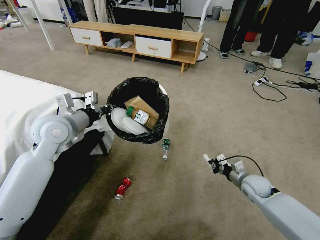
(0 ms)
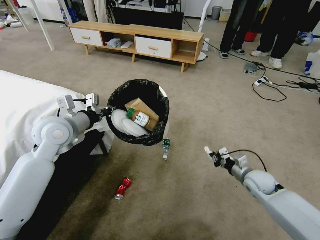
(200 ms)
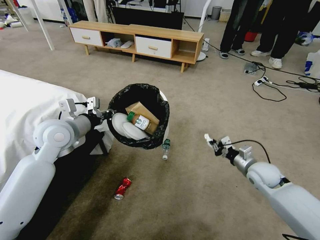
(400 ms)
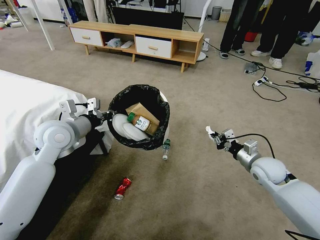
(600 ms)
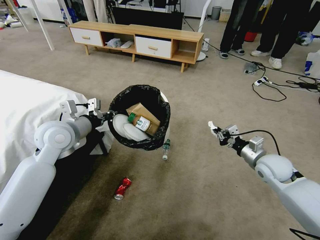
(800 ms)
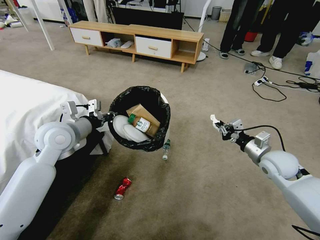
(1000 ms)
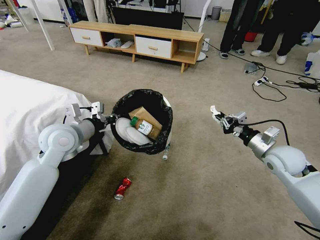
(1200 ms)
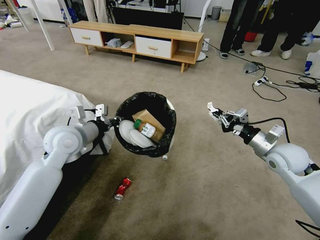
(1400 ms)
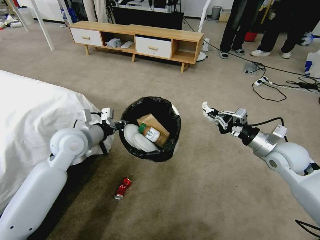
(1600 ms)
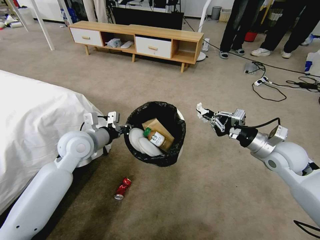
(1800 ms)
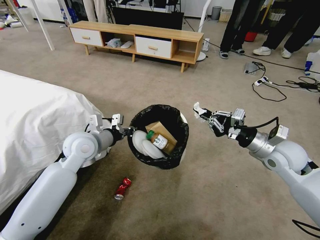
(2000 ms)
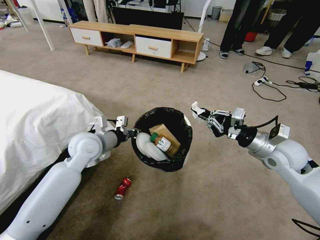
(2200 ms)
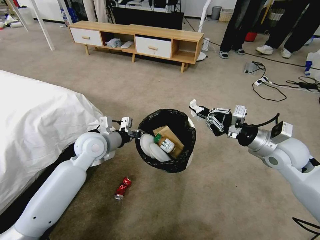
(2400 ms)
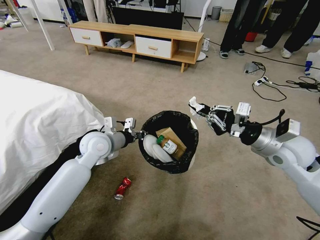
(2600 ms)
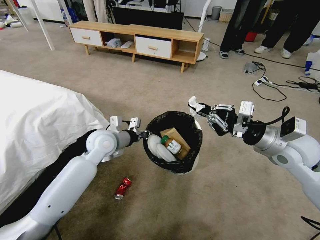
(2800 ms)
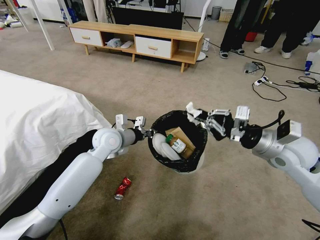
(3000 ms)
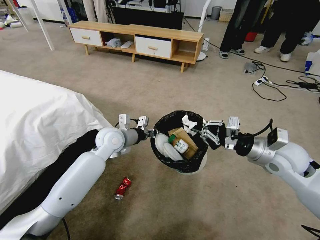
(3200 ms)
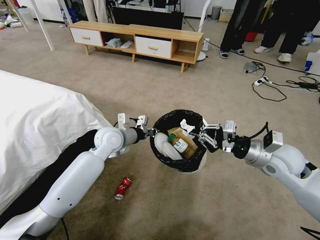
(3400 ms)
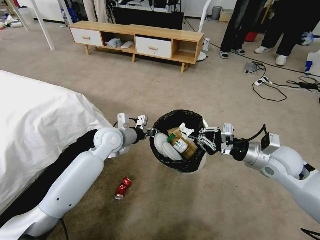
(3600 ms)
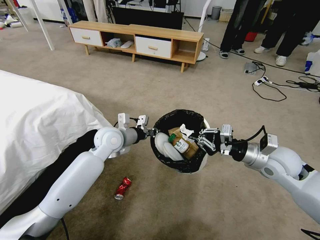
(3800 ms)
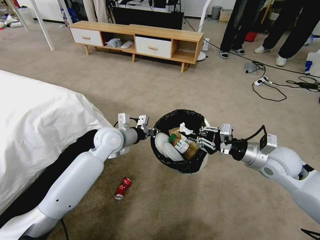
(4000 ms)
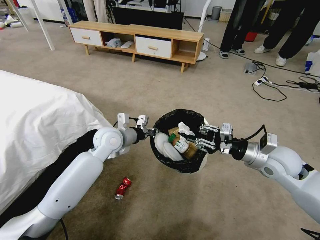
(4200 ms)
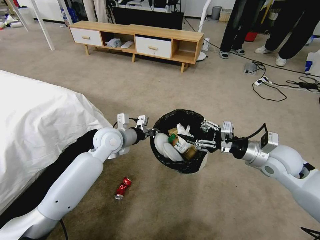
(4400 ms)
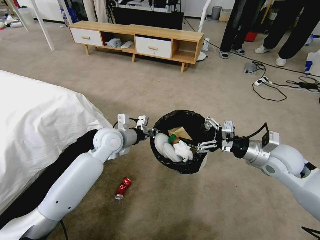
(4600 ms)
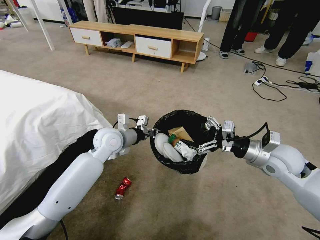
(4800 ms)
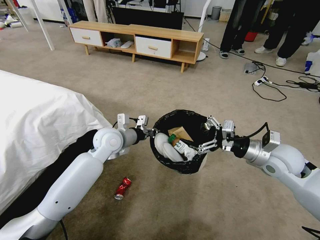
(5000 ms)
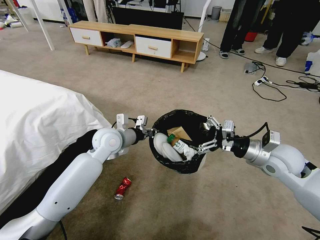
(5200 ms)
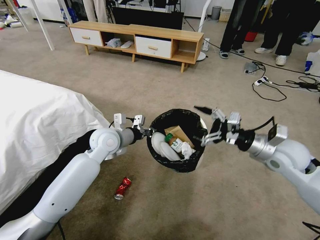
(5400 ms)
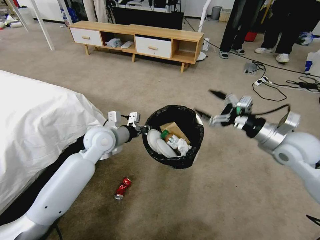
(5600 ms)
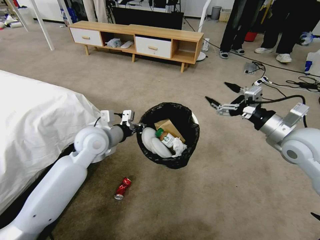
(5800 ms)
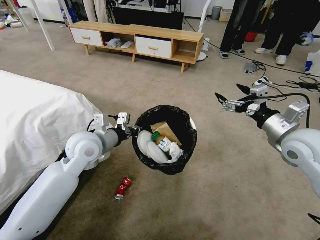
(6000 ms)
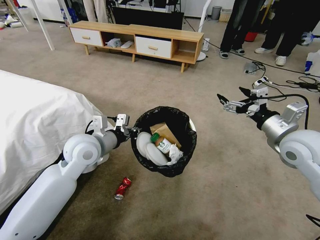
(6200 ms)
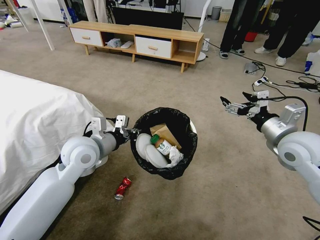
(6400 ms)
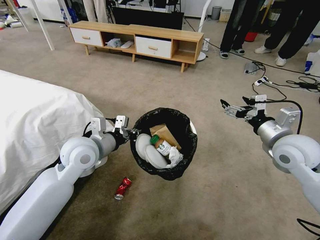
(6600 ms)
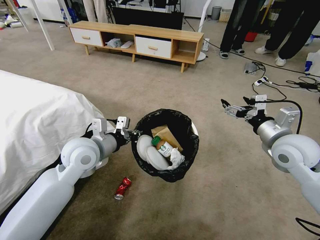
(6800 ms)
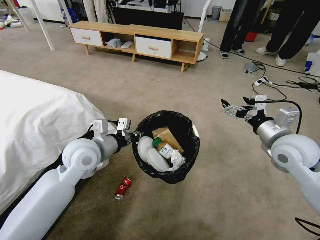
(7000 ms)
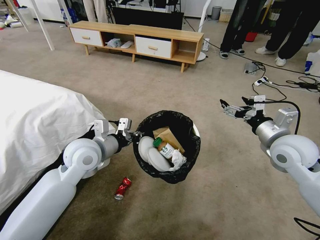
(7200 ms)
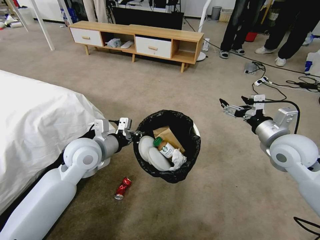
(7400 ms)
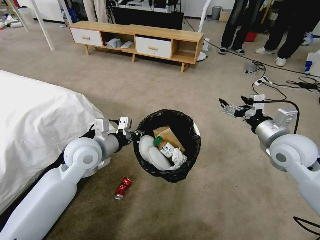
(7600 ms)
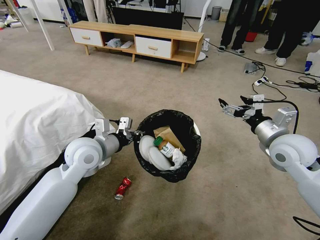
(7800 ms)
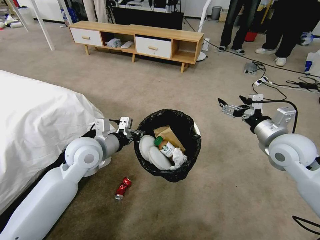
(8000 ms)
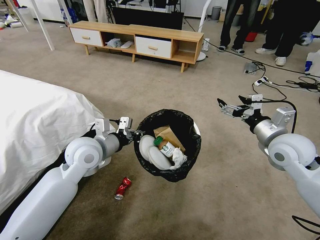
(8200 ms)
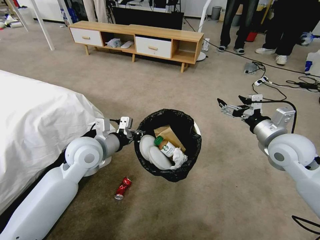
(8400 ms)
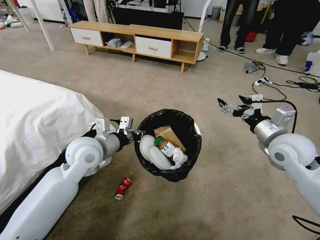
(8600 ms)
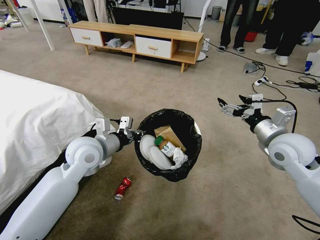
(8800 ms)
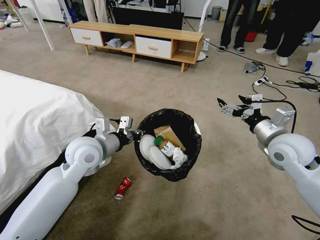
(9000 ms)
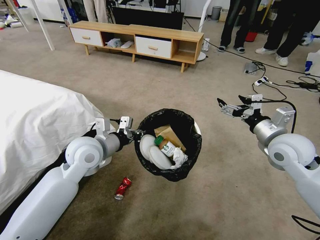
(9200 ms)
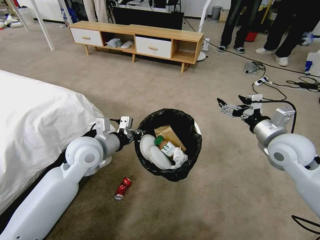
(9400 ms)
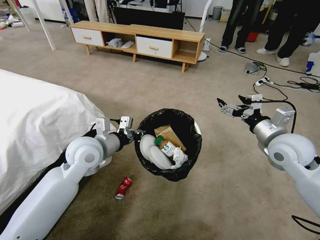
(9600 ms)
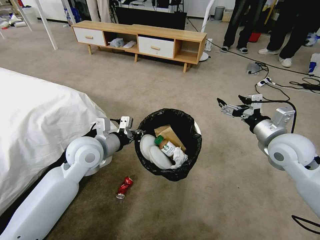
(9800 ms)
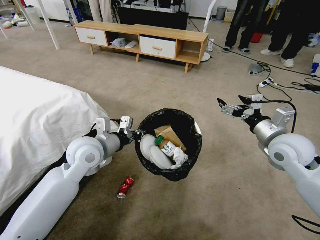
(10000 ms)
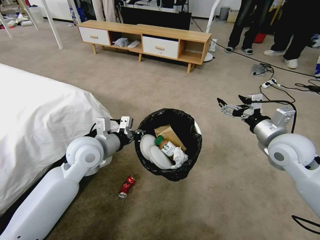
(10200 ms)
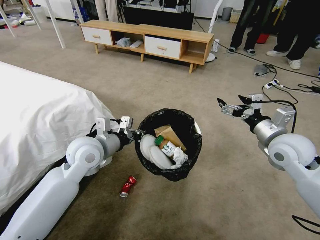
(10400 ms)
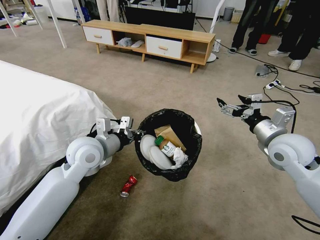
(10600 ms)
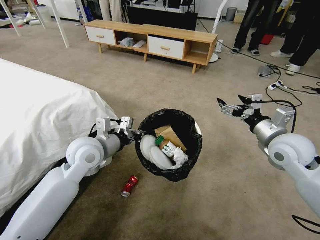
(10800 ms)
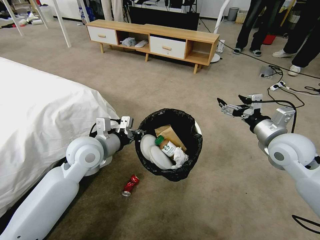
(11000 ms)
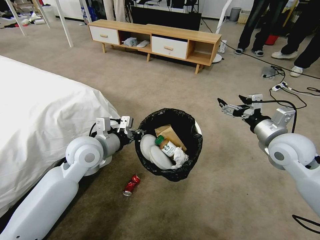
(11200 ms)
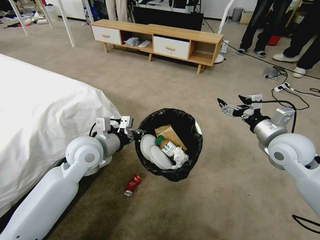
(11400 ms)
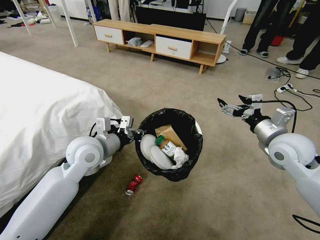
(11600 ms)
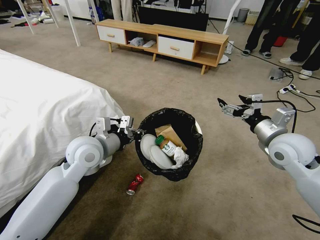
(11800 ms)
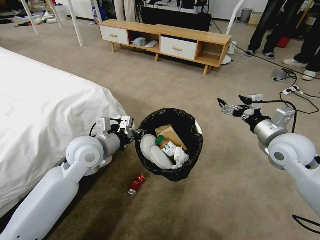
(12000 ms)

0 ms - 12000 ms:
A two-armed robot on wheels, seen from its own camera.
Task of the whole recording: Pick up the trash bin and place the garbage on the floor into it.
0 ms - 1600 ms: The left gripper changes place by roughly 5 cm. Meanwhile the right gripper shifts roughly 20 cm upward.
1600 ms - 3000 ms: The right gripper is displaced upward by some 5 cm. The left gripper heads to the right, forward and downward, covering approximately 10 cm.
3000 ms - 4400 ms: The right gripper opens up.
4400 ms - 6000 ms: The right gripper heads upward, covering some 5 cm, and opens its fingers. The left gripper shifts approximately 5 cm backward.
7600 ms - 9000 ms: The two grippers keep their place.

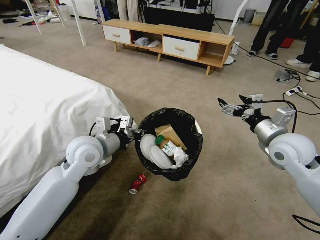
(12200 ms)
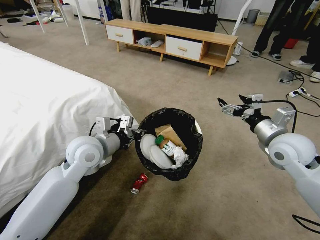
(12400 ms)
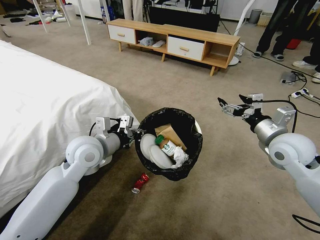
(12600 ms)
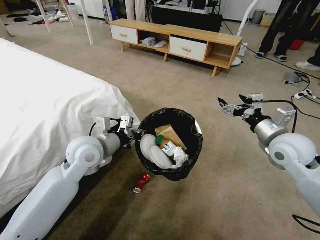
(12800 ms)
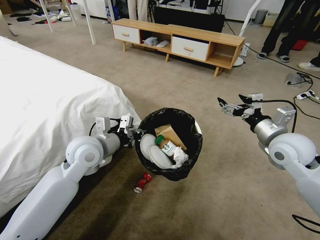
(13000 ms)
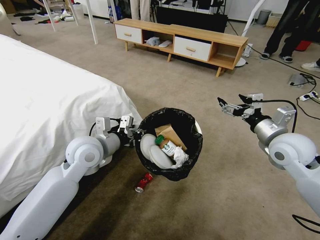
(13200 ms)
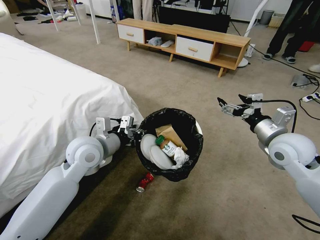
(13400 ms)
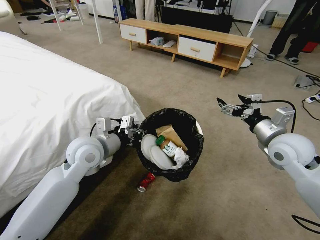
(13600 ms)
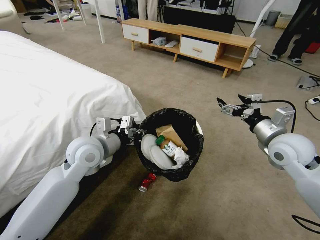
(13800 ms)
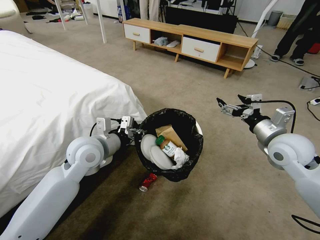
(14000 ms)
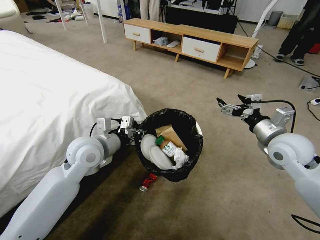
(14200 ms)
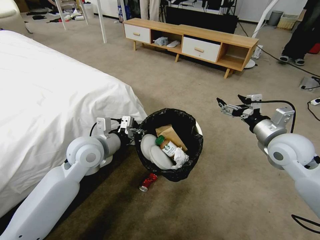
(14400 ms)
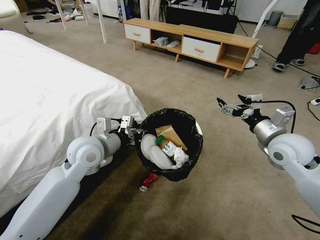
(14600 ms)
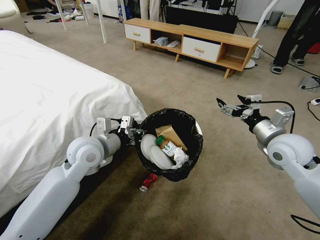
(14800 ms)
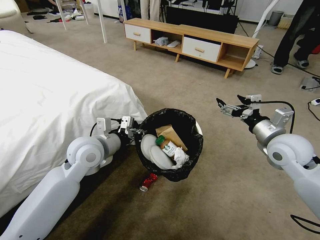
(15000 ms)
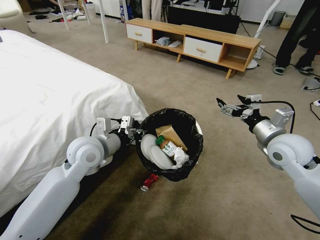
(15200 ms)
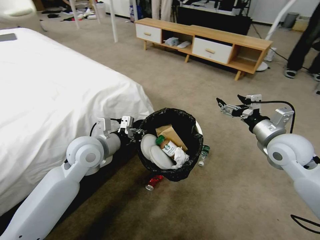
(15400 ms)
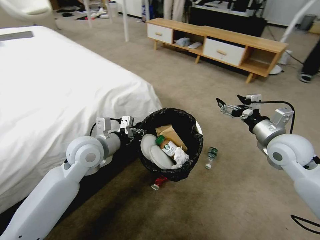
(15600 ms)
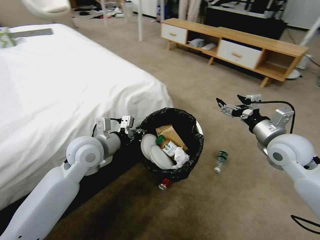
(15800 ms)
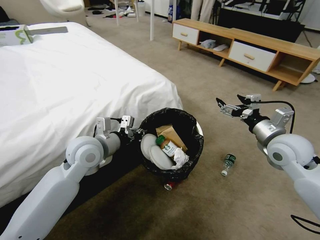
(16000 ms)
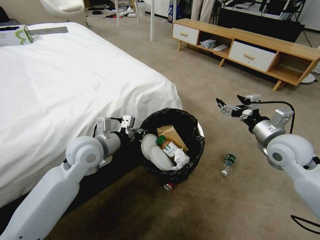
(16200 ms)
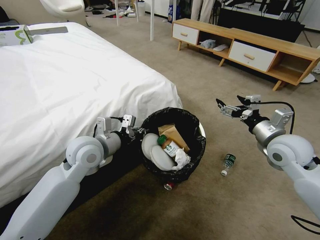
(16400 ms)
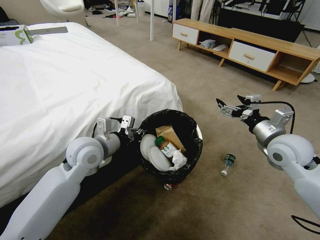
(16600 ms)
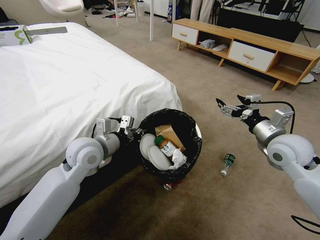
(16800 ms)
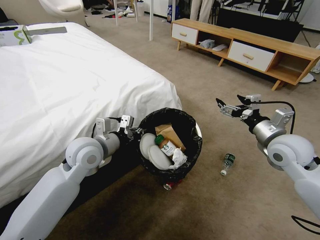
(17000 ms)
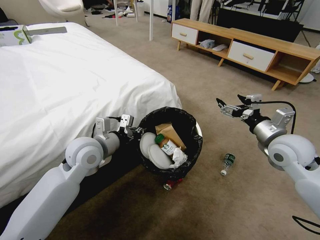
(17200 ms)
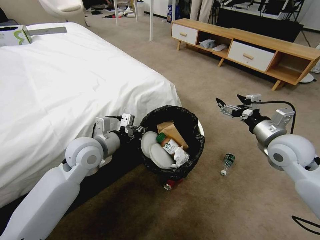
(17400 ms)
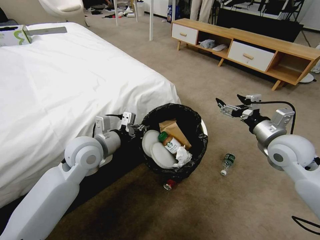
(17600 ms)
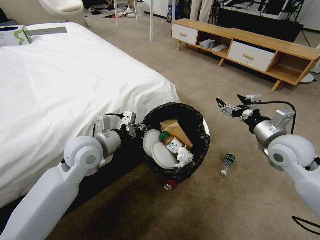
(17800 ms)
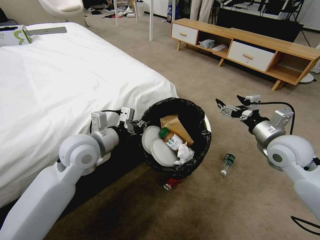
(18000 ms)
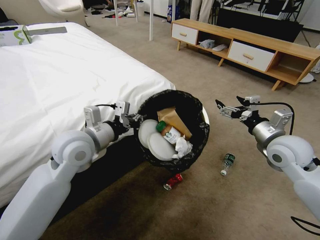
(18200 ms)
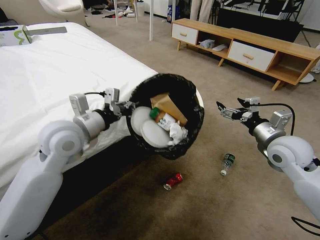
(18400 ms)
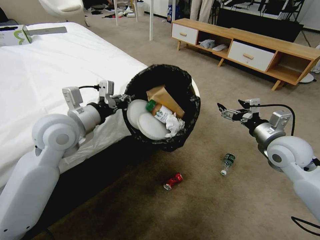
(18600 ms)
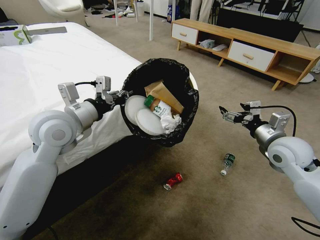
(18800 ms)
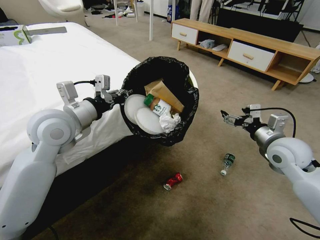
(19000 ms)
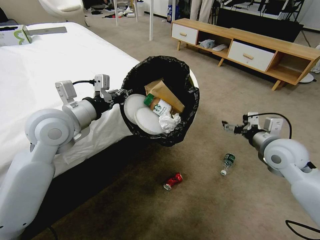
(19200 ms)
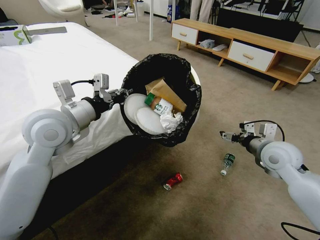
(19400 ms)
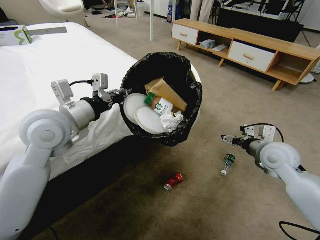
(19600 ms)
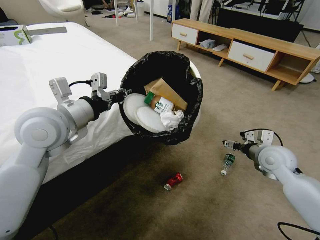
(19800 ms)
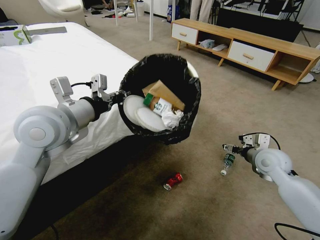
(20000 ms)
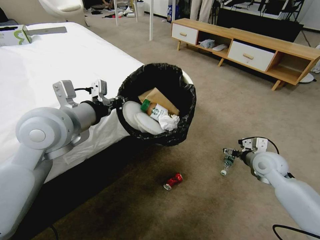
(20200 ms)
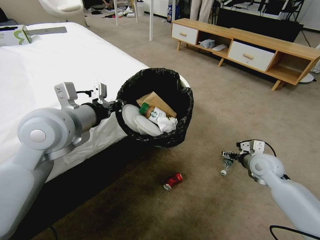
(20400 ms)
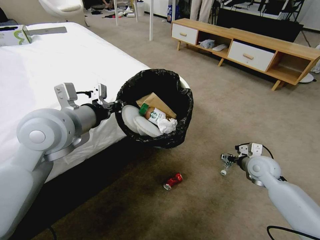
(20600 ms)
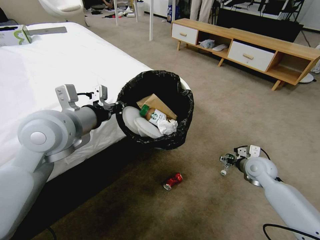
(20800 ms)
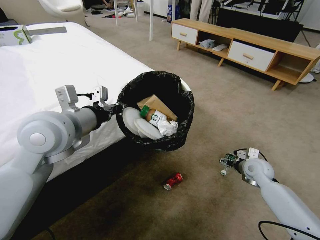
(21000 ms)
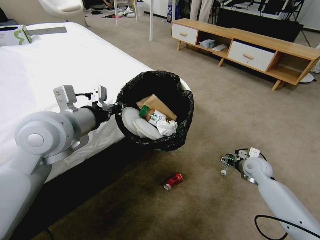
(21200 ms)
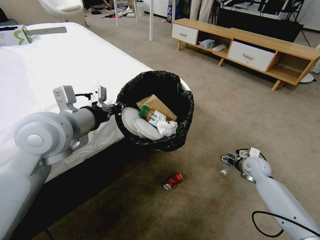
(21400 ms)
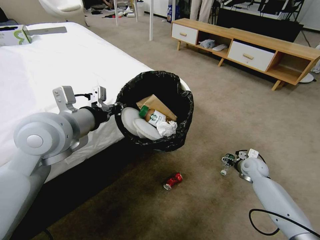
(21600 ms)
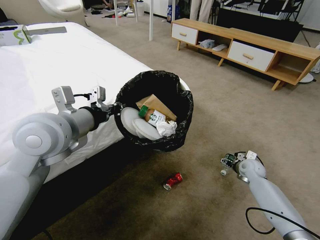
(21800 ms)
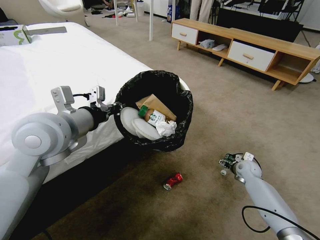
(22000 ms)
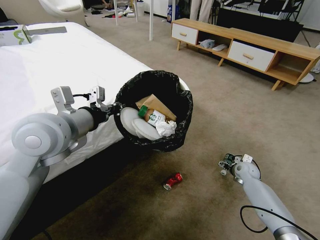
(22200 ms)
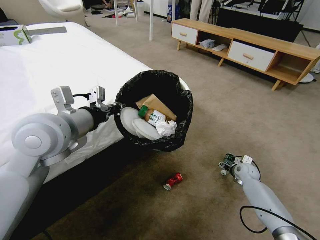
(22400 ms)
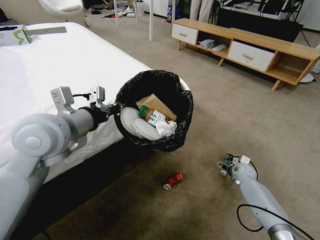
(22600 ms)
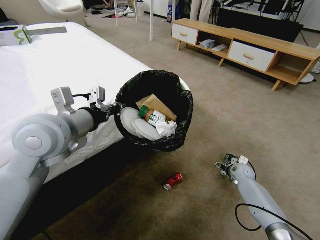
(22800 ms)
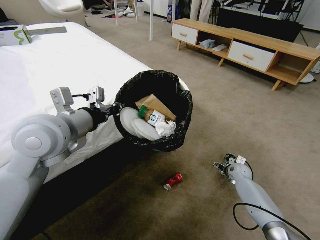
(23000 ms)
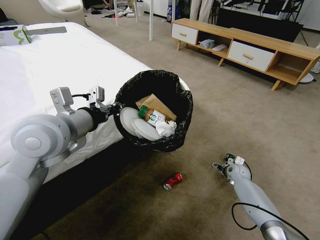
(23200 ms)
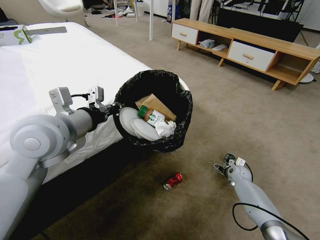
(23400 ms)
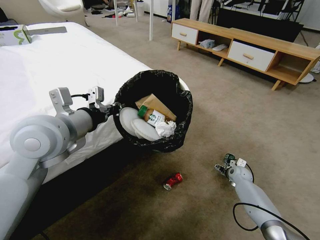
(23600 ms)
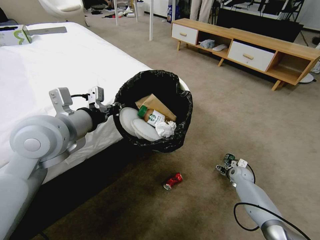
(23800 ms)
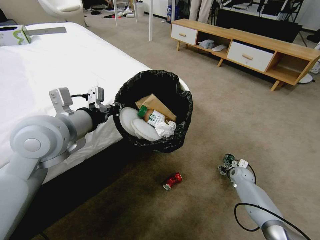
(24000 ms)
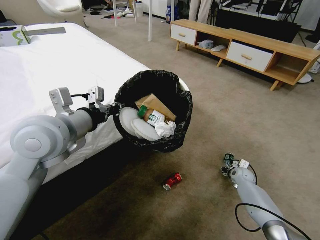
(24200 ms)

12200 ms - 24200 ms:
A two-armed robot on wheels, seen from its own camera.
Task of the whole recording: Pick up the trash bin and place the garbage on the floor into it.
13800 ms - 15200 ms: Both grippers stay about where they are.
16600 ms - 18200 ms: There are only small adjustments of the grippers.
18200 ms - 19800 ms: The left gripper travels upward by roughly 5 cm. The right gripper travels downward by some 5 cm.
19800 ms - 21200 ms: The right gripper shifts about 15 cm downward.
21200 ms - 22600 ms: The right gripper is displaced downward by roughly 10 cm.
22600 ms - 24200 ms: The right gripper closes up.
